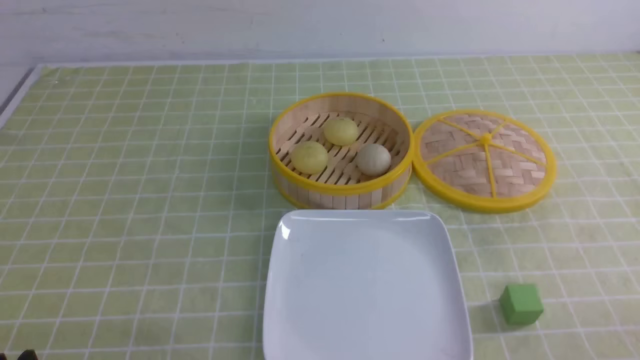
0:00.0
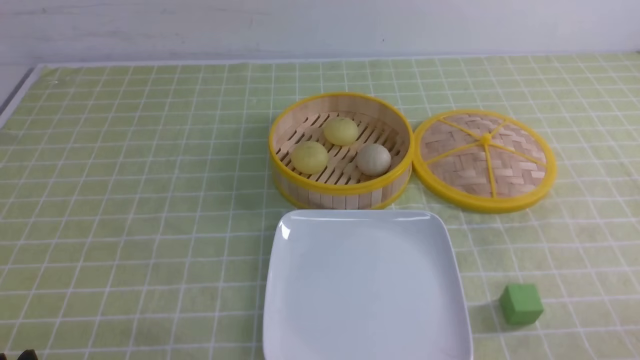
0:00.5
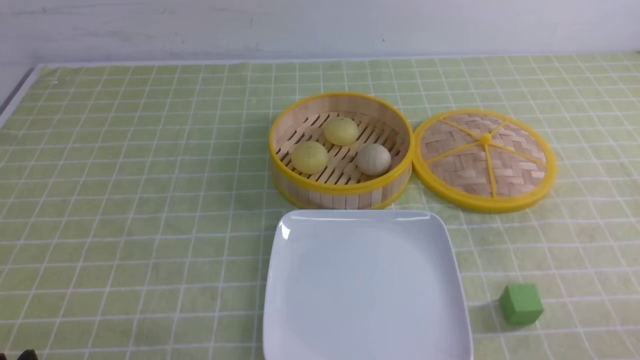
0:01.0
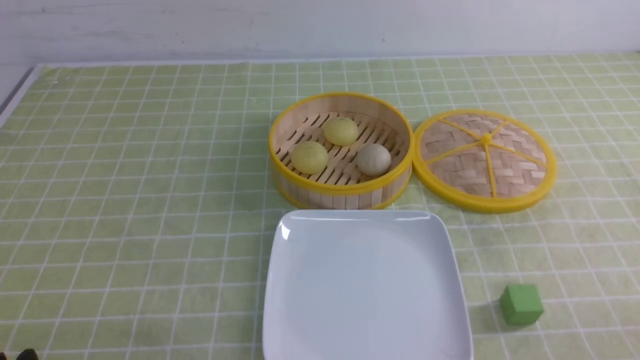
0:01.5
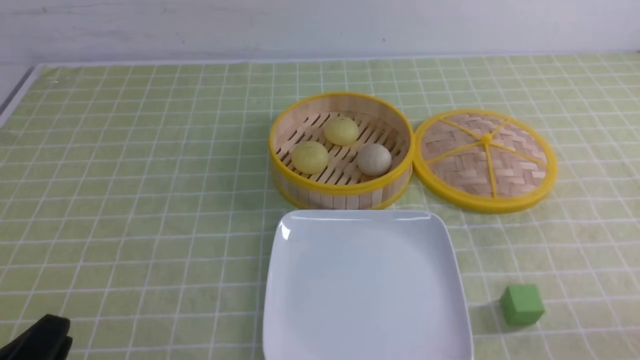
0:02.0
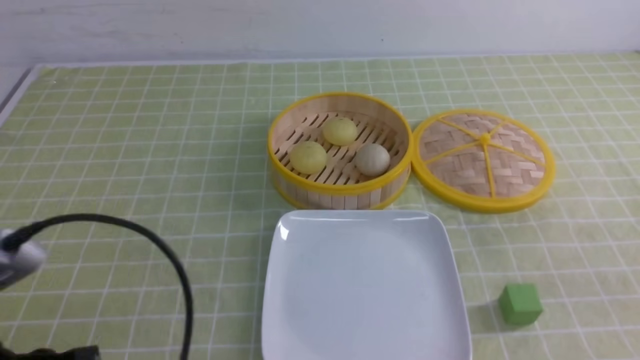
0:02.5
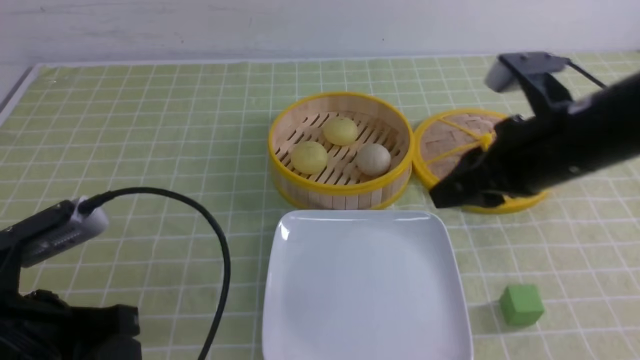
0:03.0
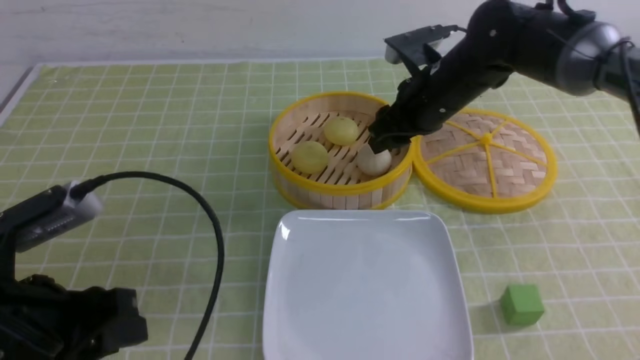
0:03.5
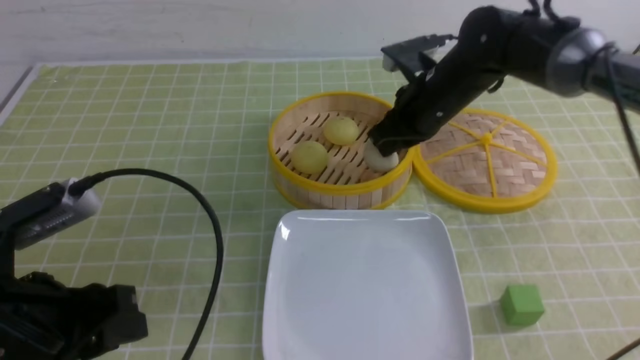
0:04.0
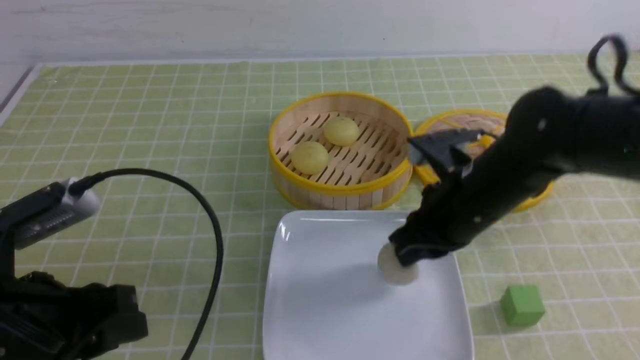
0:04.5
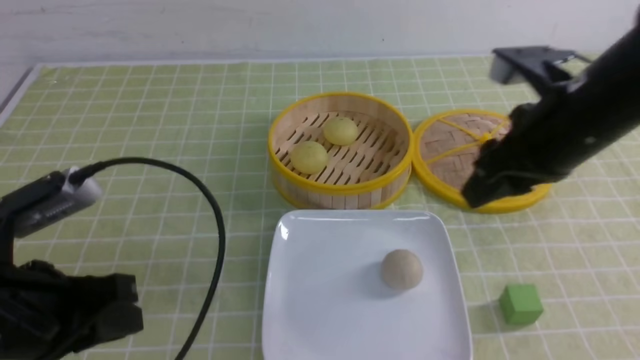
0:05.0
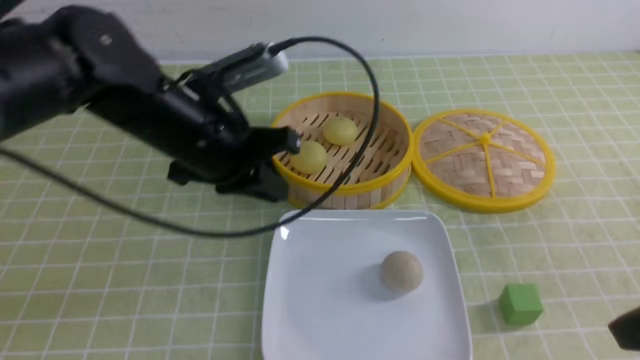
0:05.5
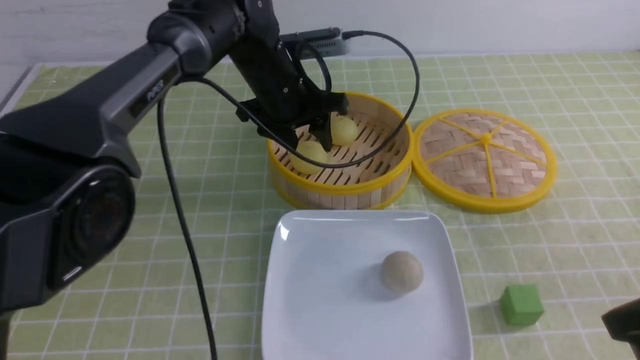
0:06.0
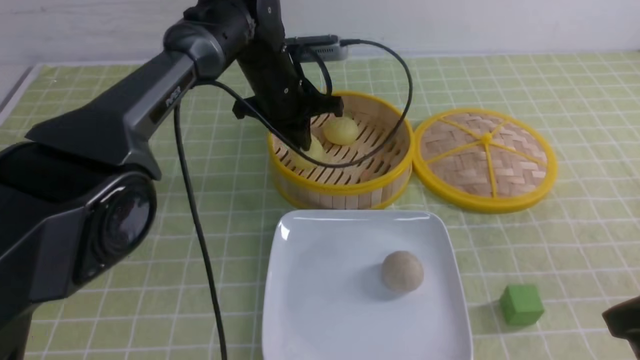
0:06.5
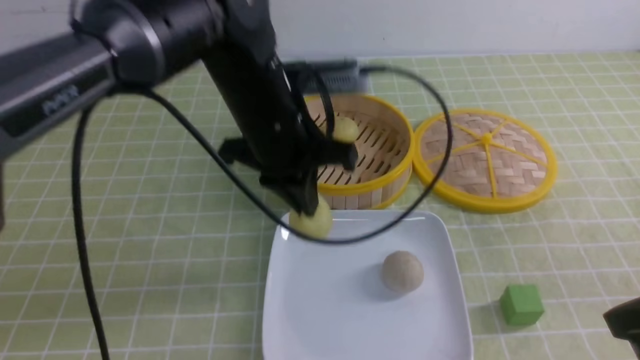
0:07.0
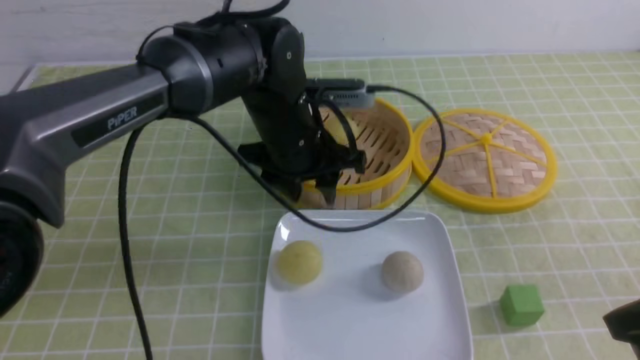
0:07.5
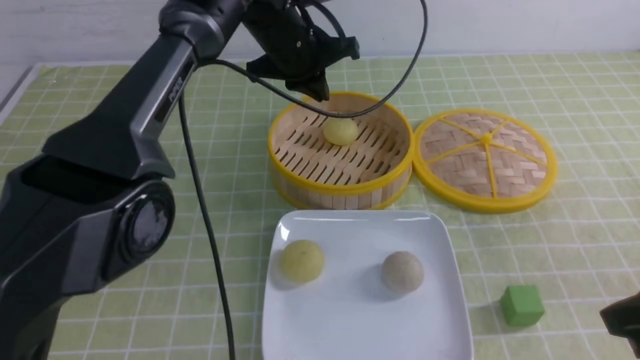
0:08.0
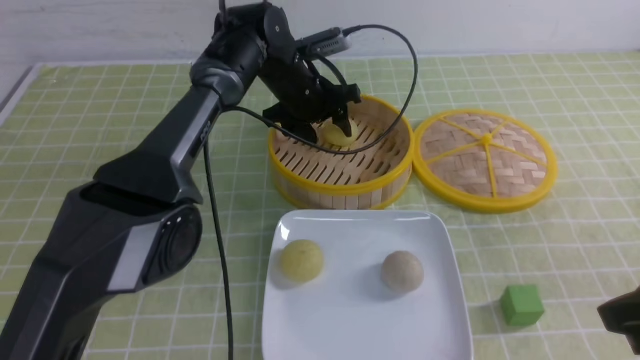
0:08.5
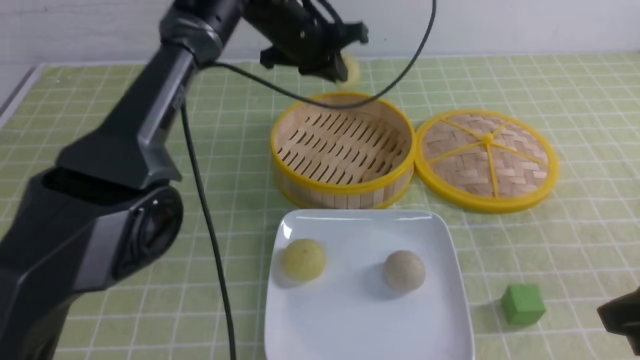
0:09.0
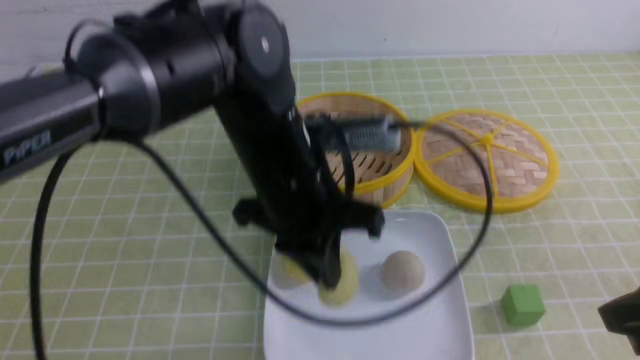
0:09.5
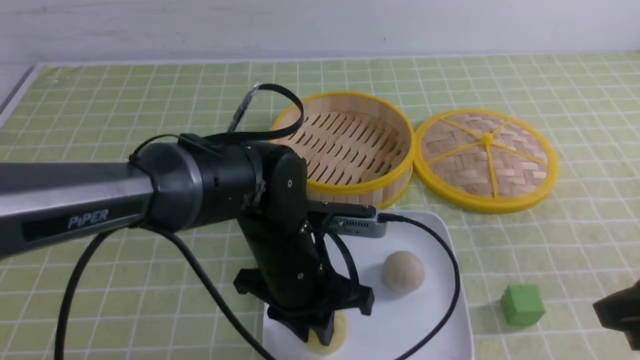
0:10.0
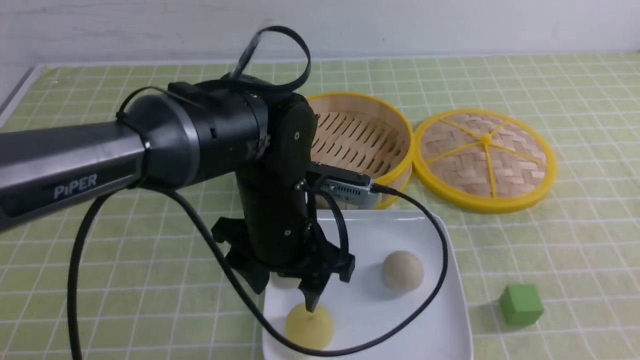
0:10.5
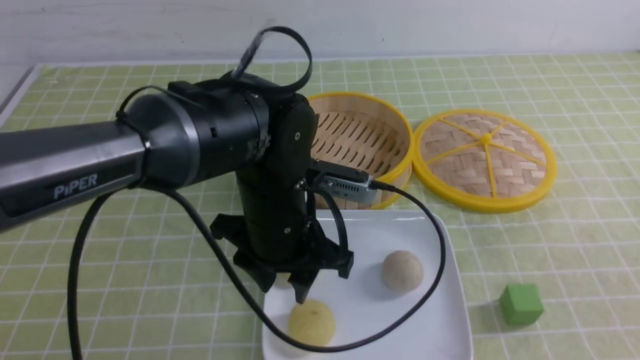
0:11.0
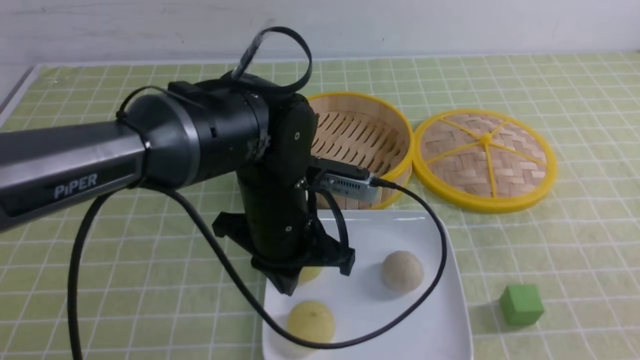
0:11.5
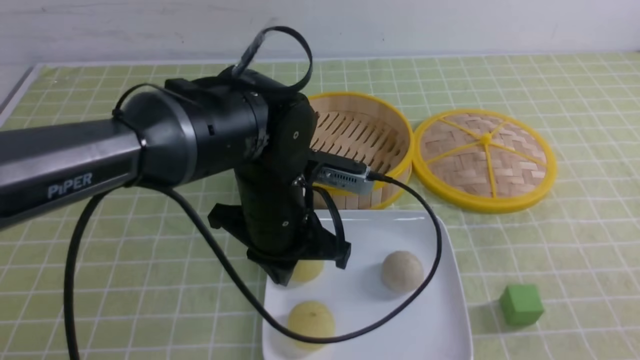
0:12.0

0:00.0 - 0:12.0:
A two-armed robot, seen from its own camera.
Step, 0:00.0 - 0:03.5: use the right arm to grab the steamed stuffed bun that is closest to it.
Step, 0:04.0 - 0:04.5: use the right arm to put the steamed stuffed bun into the plate.
Step, 0:05.0 - 0:06.0: use the left arm to grab the steamed stuffed bun that is closest to it.
Step, 0:06.5 - 0:07.0: use the left arm to put the steamed stuffed bun into the plate.
Step, 0:07.5 - 0:08.5: use the left arm to grab the steamed stuffed bun that is closest to it.
Step, 0:09.0 - 0:10.0: use the left arm to put the steamed stuffed bun into the plate.
0:02.0 - 0:04.0: The right gripper moves forward and to the left, about 40 cm, and opens and closes again, while the left gripper goes about 10 cm forward.
0:04.0 - 0:06.0: The left gripper is displaced forward and to the right by approximately 35 cm. The right gripper moves backward and to the right, roughly 30 cm, and opens, then closes again.
0:06.0 - 0:08.0: The left gripper goes backward and returns, approximately 10 cm each way, and closes up.
0:08.0 - 0:10.0: The left gripper goes about 20 cm backward.
0:10.0 - 0:12.0: The left gripper heads upward, covering some 5 cm, and closes, while the right gripper moves backward and downward, roughly 10 cm.

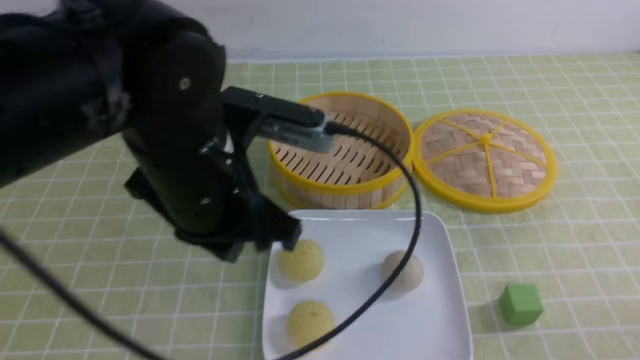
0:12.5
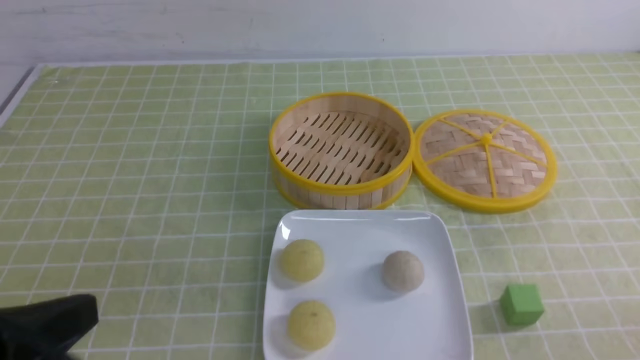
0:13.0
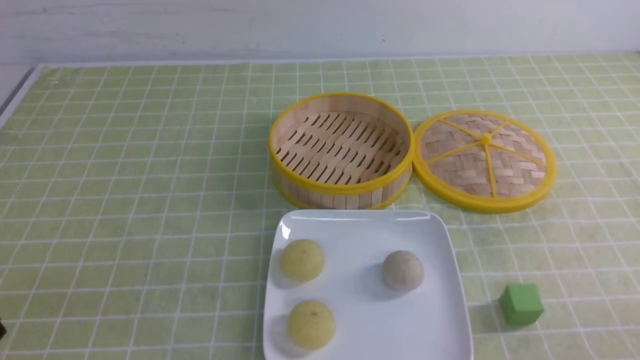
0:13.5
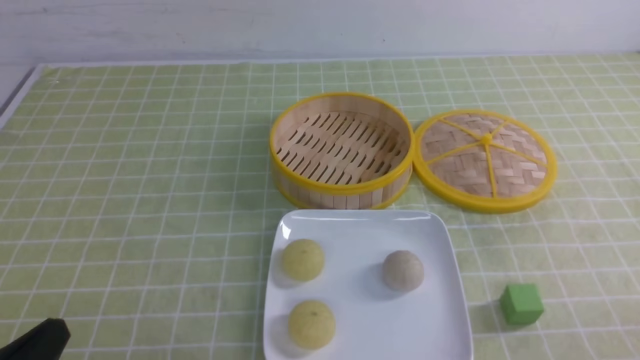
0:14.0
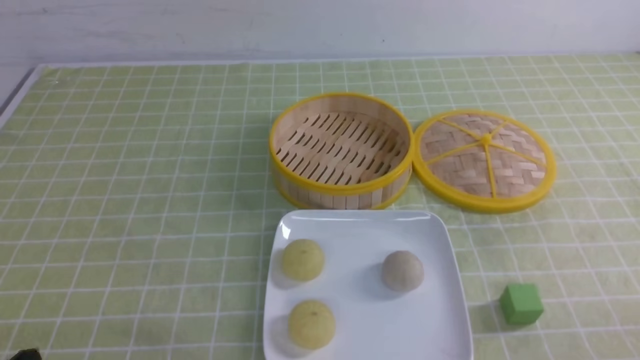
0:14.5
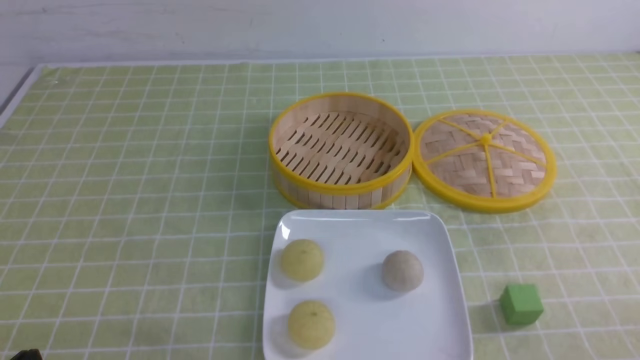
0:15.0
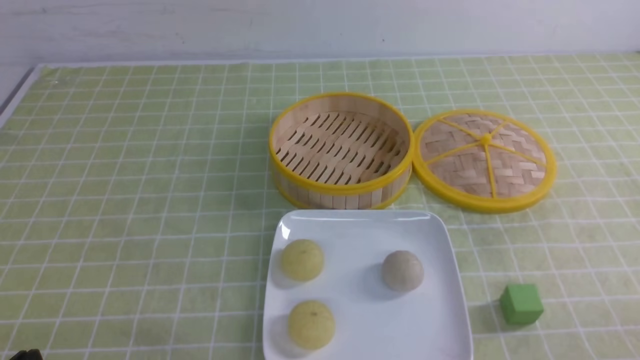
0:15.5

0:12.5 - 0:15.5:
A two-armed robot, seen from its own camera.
0:12.5 - 0:14.0: The left gripper is displaced backward, to the left and downward by about 25 cm.

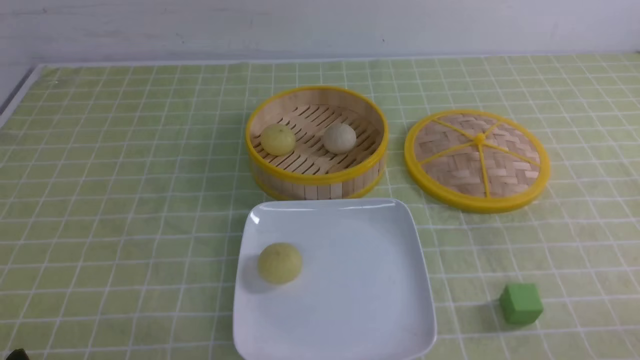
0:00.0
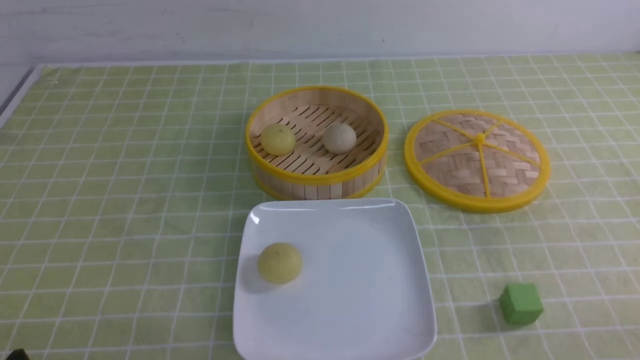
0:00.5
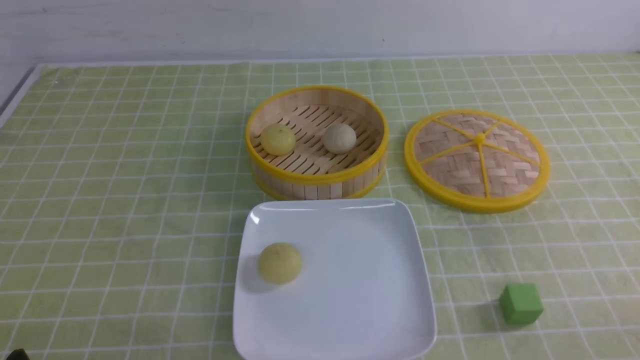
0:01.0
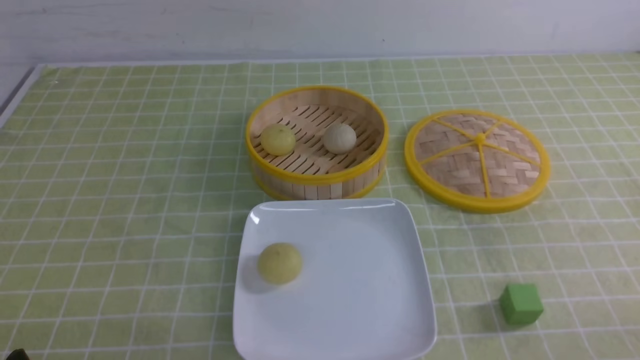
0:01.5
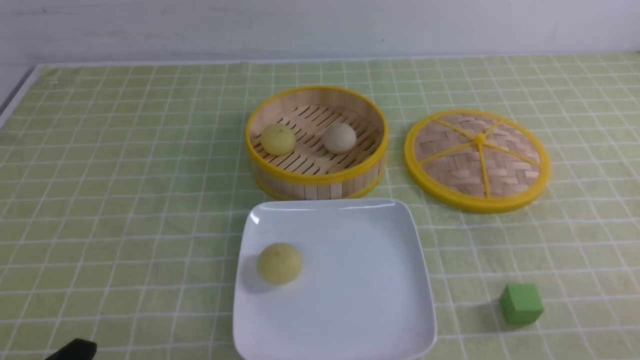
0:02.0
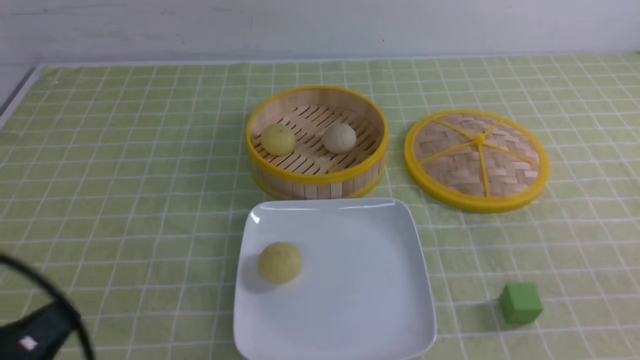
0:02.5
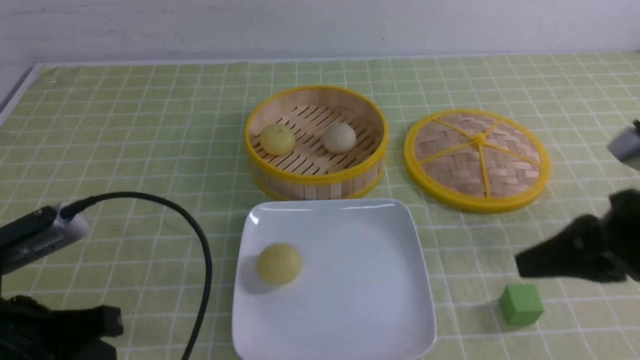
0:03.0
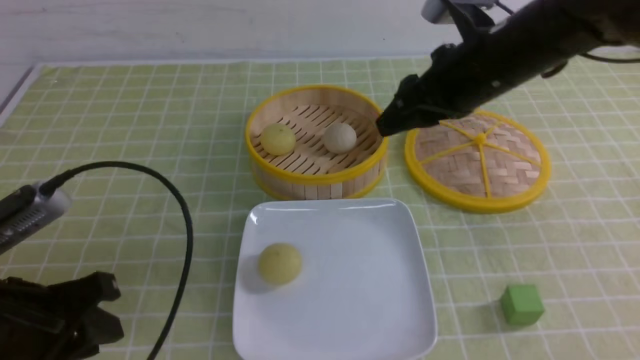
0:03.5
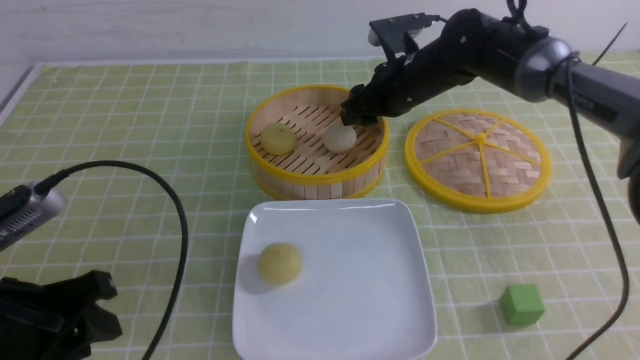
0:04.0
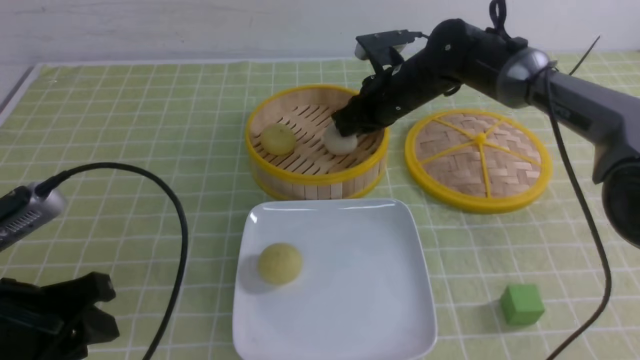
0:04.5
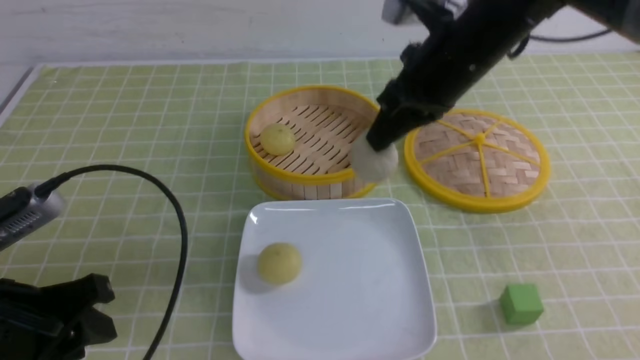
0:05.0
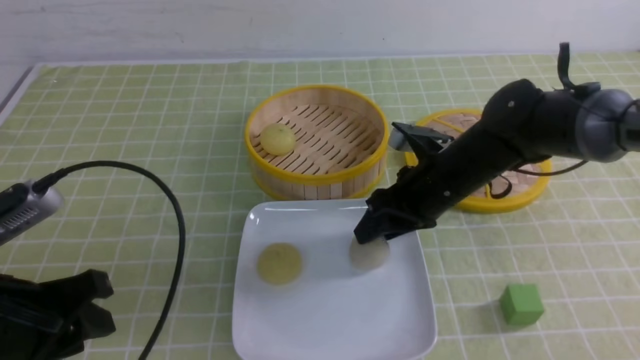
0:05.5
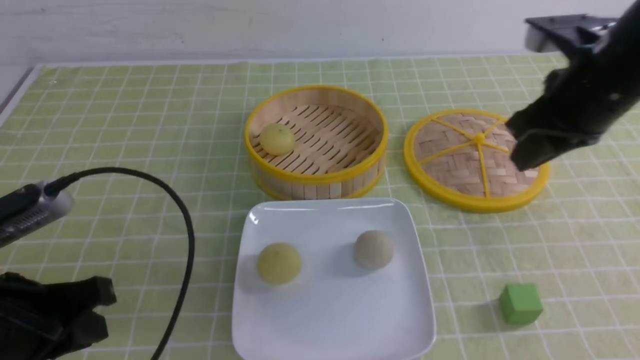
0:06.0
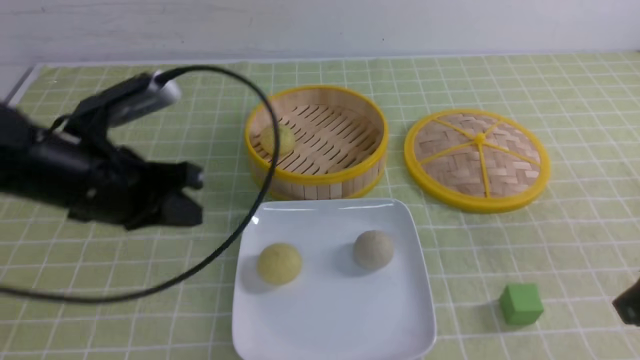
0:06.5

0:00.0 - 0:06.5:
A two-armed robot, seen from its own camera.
Step, 0:00.0 - 0:04.0: use the right arm to grab the steamed stuffed bun that is closest to it.
Step, 0:04.5 - 0:05.0: use the right arm to put the steamed stuffed bun into the plate.
0:02.0 - 0:04.5: The right gripper goes some 50 cm forward and to the left, and closes its fingers. The left gripper is displaced forward and upward by approximately 10 cm, and closes, then reopens.
0:04.5 - 0:06.5: The left gripper goes roughly 15 cm forward and to the right, and closes. The right gripper is displaced backward and to the right by roughly 35 cm, and opens and closes again.
